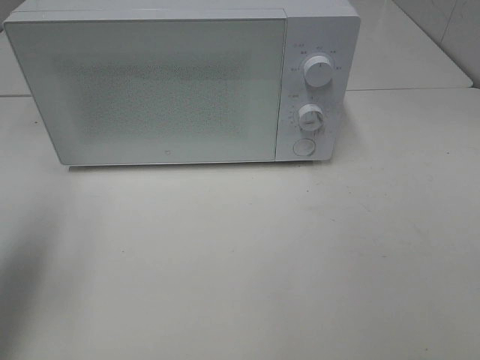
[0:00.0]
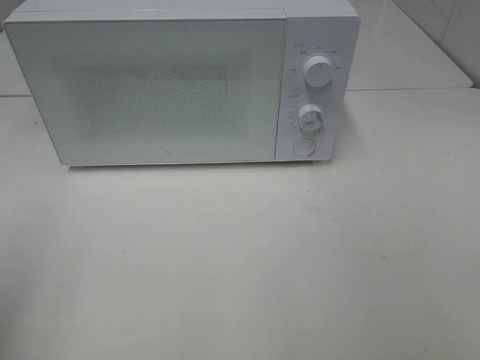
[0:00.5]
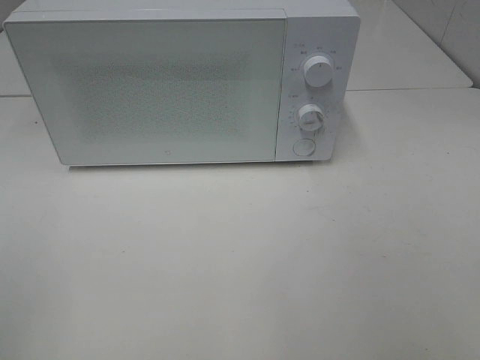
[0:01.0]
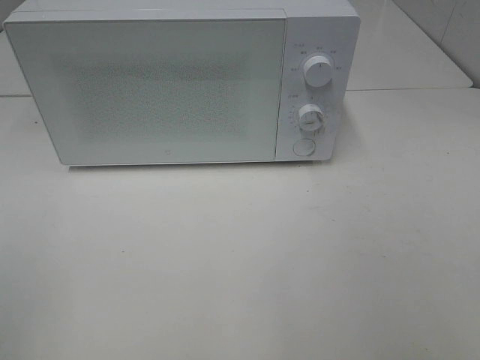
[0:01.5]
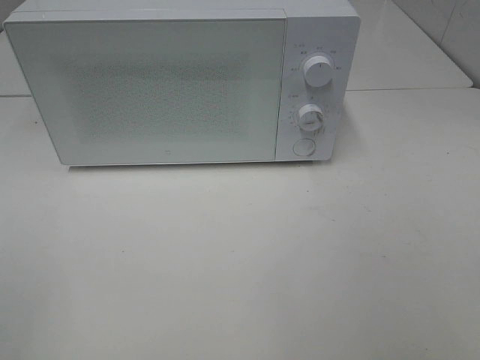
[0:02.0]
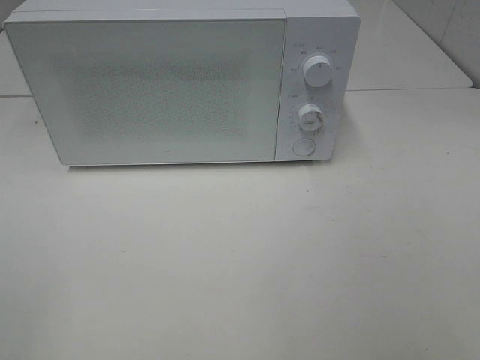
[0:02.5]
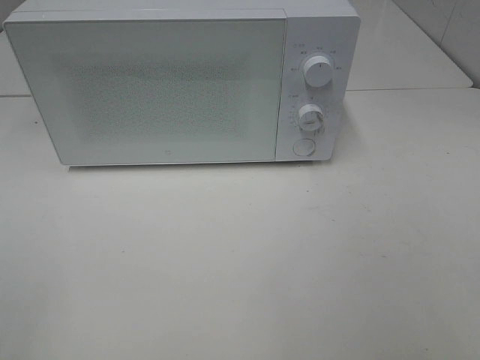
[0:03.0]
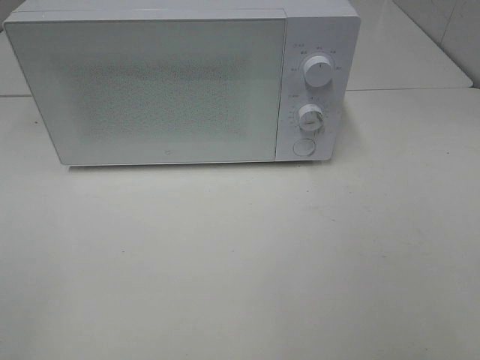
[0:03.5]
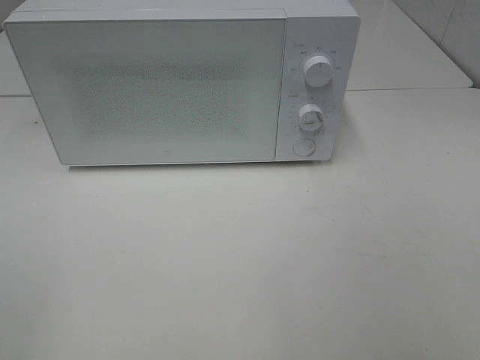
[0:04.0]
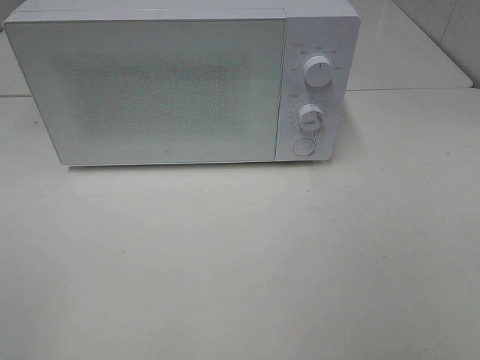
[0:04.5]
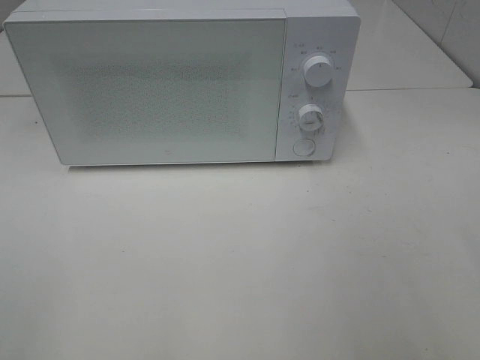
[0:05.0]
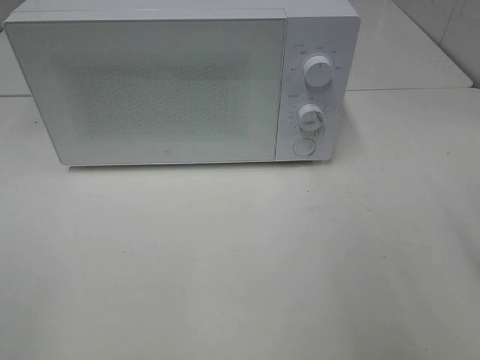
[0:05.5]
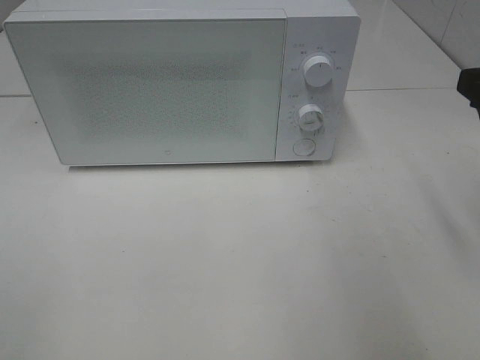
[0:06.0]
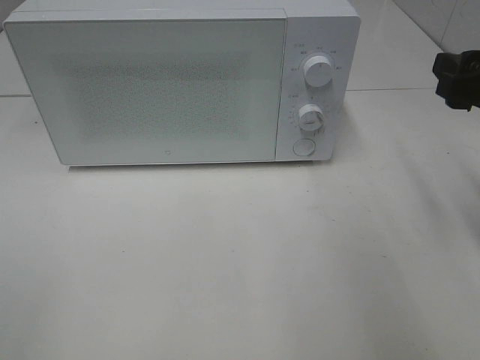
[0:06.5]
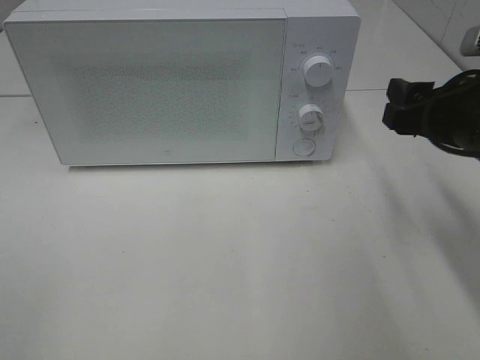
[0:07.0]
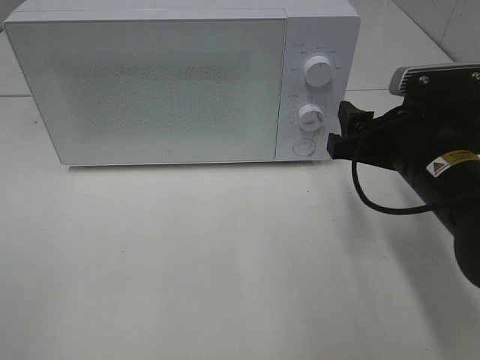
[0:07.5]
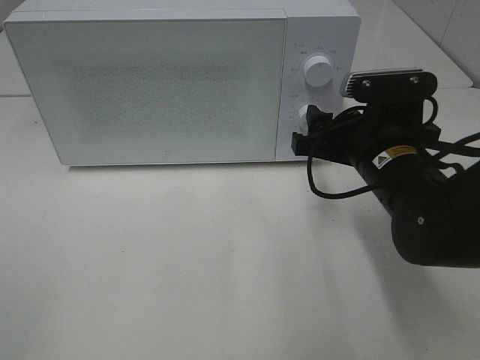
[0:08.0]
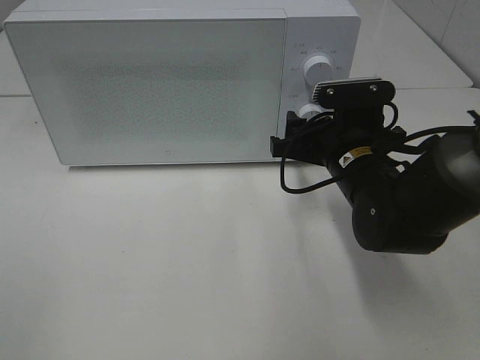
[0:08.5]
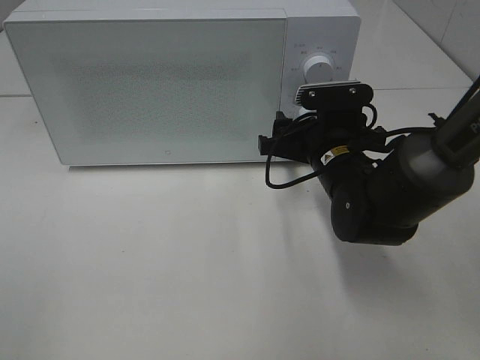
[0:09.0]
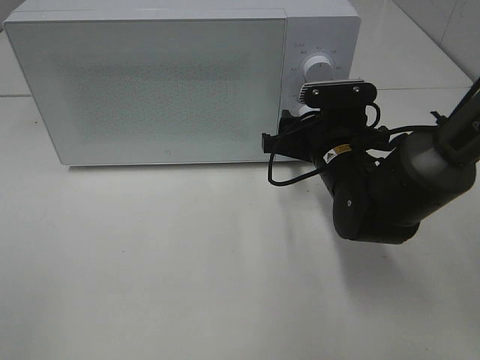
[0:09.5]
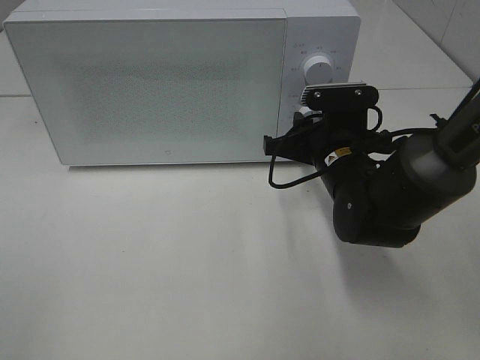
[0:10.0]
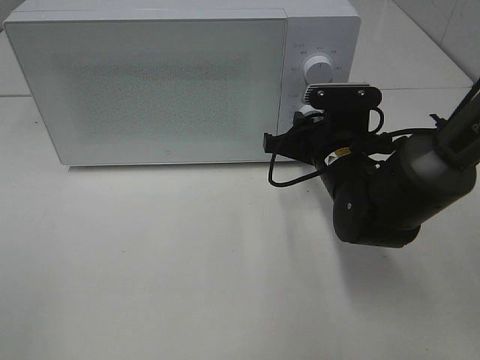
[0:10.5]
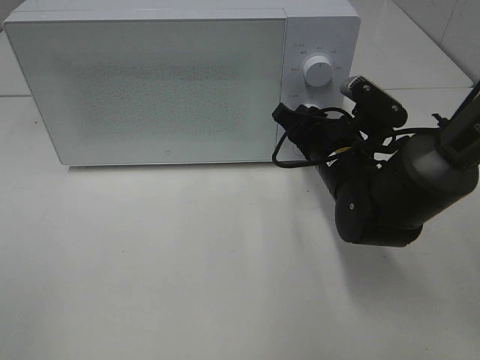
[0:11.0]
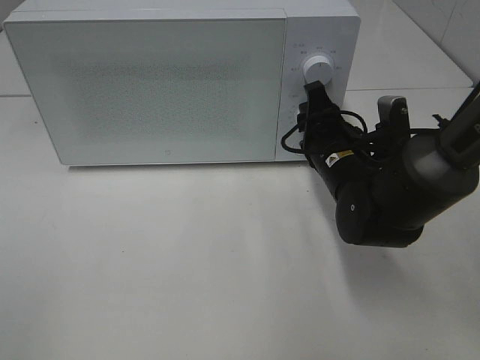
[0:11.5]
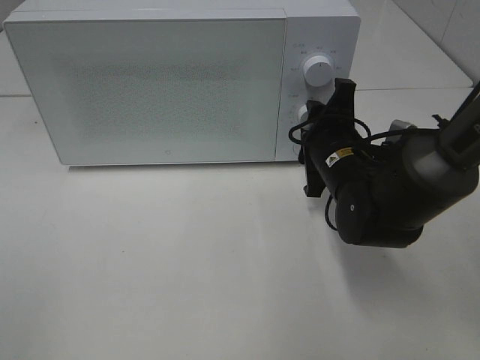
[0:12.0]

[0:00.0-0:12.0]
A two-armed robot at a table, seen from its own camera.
Task of the whole recording: Heat Sandwich.
0:00.0 to 0:02.0: The left gripper heads backward, covering some 20 cm.
0:06.0 to 0:08.0: The right gripper is displaced to the left, downward and forward by some 20 cm.
0:08.0 to 0:10.0: The right gripper ends up approximately 5 cm from where it was, and closes its fingers.

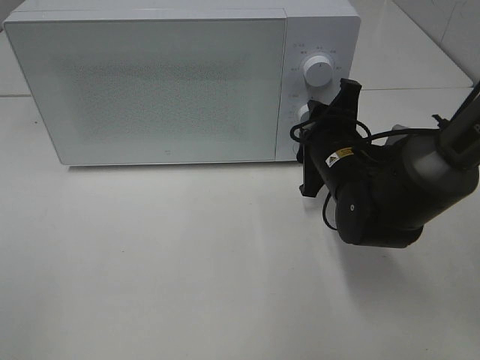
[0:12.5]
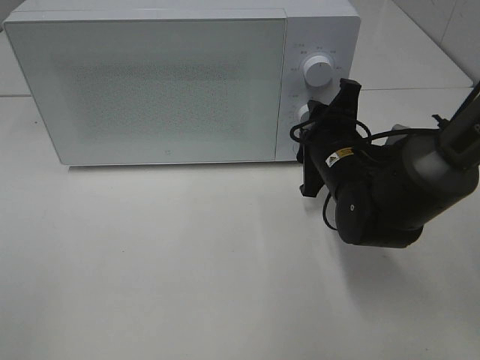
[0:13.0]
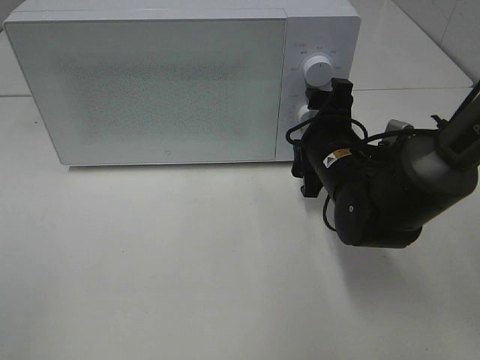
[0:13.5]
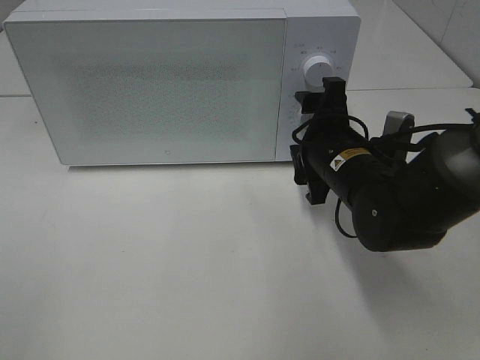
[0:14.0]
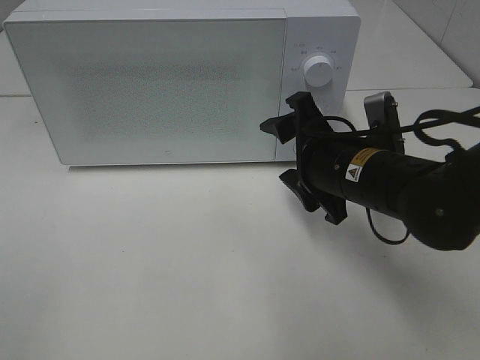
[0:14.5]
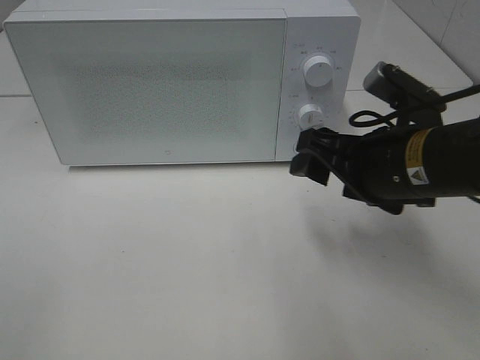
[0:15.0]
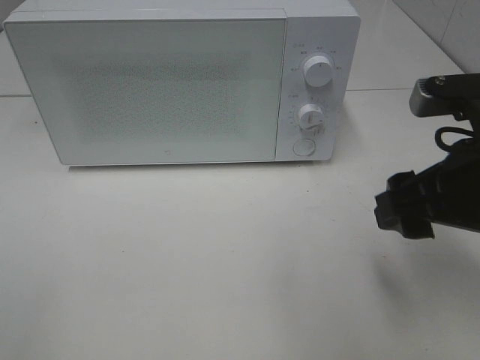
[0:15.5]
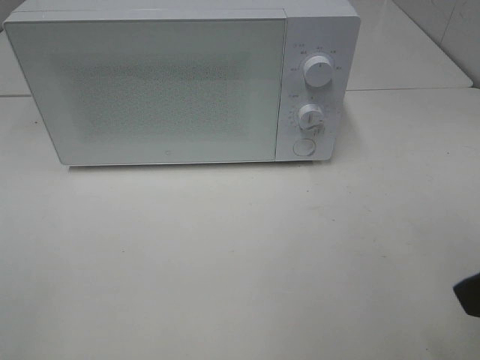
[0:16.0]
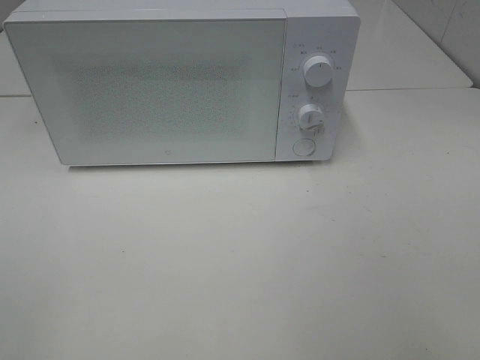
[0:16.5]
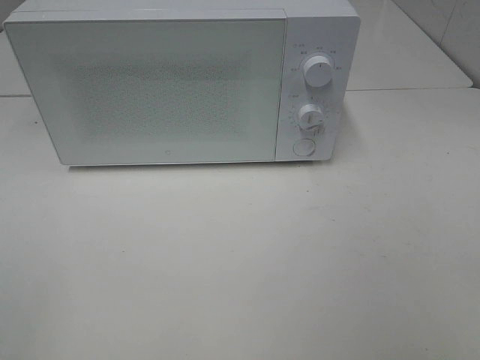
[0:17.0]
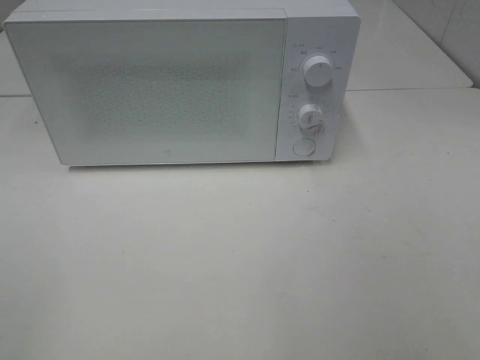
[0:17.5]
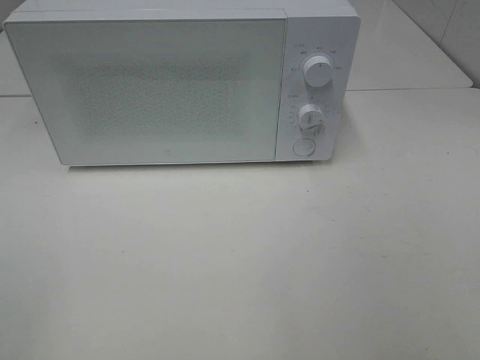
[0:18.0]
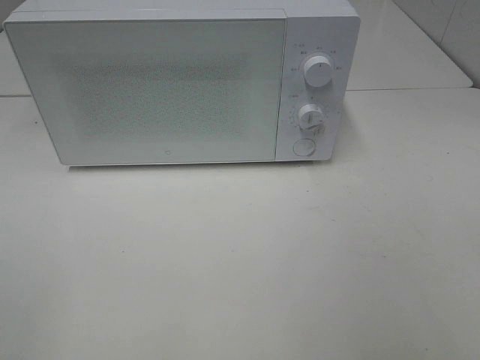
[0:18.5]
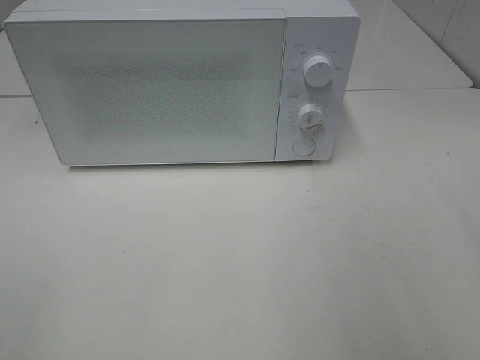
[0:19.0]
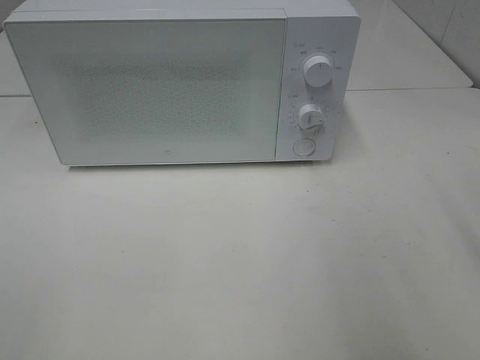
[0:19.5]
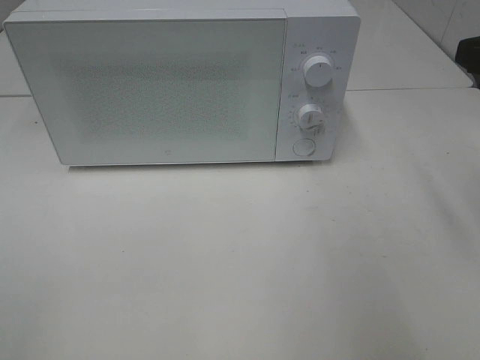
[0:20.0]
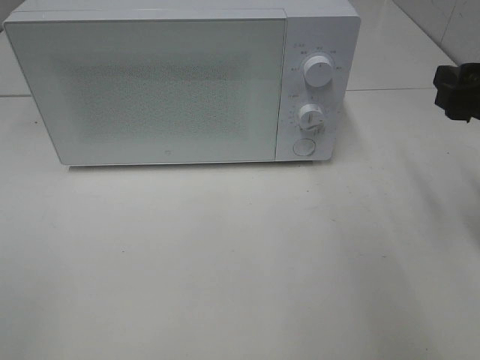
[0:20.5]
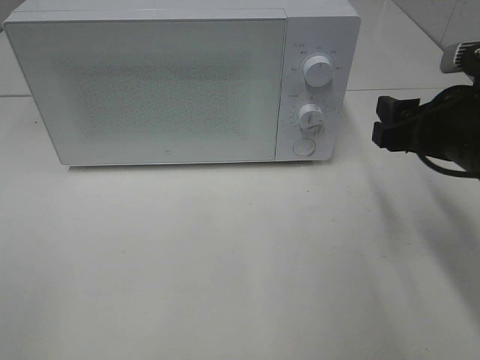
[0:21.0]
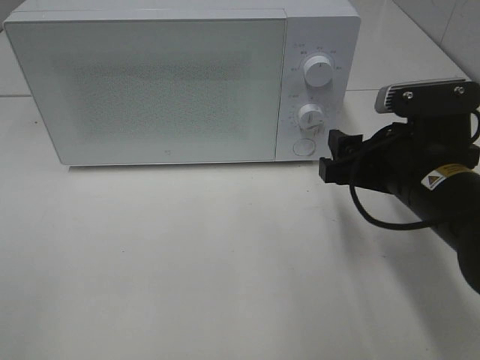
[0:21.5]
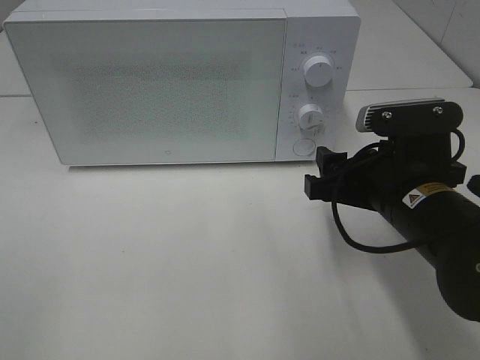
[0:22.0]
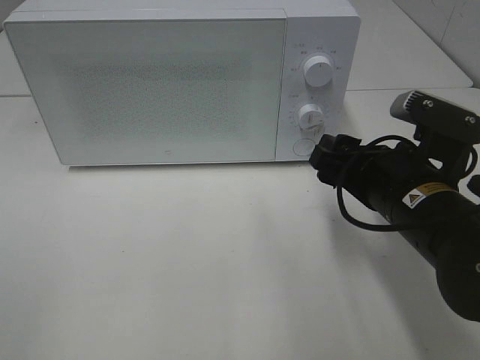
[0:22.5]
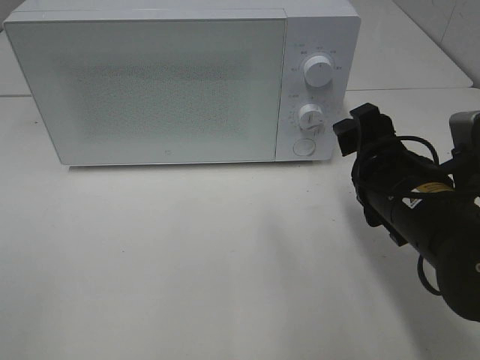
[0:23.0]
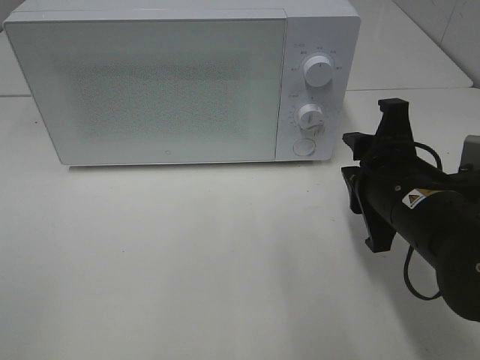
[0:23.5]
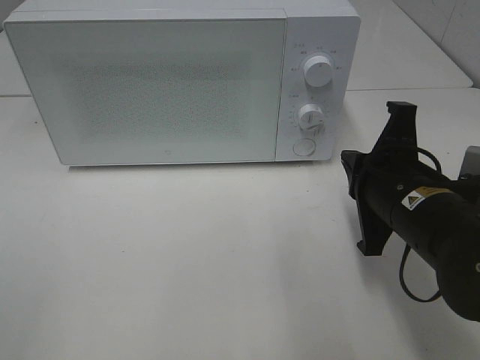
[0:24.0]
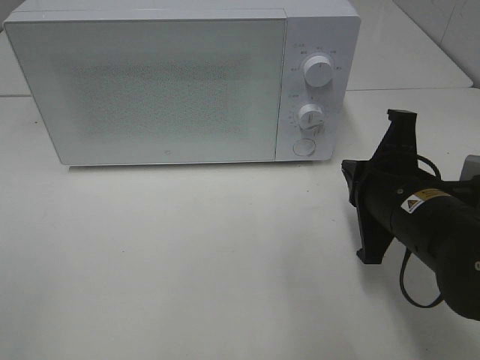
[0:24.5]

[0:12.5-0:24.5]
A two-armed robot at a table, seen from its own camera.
Task of the whole recording: Heat Sandwich.
0:12.5 to 0:14.5: The right gripper goes about 5 cm backward, and opens its fingers.
0:14.5 to 0:16.5: The right gripper goes about 30 cm backward, to the right and upward.
0:18.5 to 0:20.5: The right gripper travels forward by about 20 cm.
0:20.5 to 0:22.5: The right gripper travels to the left and downward by about 15 cm.
0:22.5 to 0:24.5: The right gripper closes up.

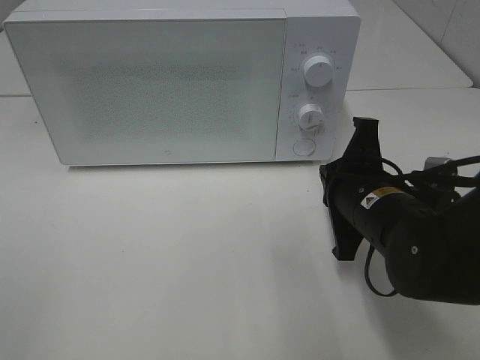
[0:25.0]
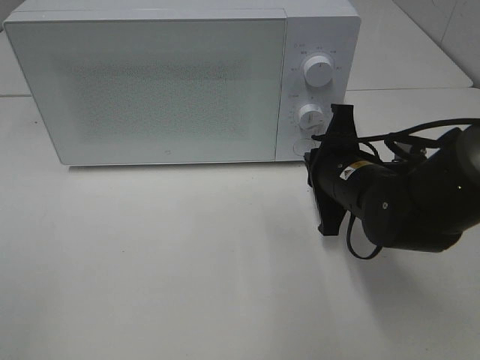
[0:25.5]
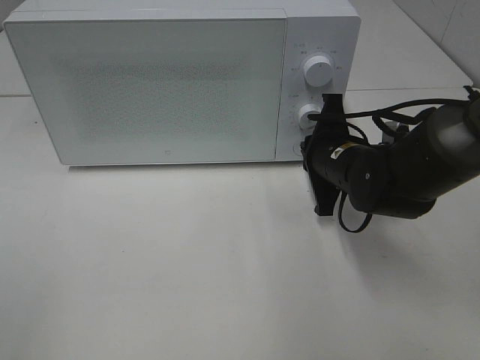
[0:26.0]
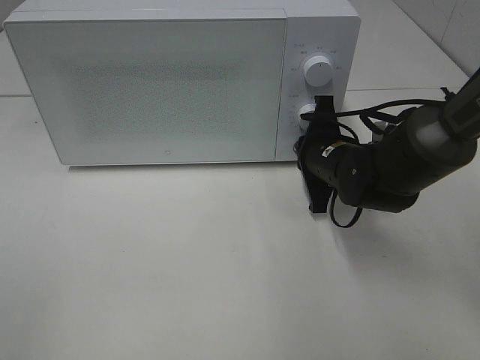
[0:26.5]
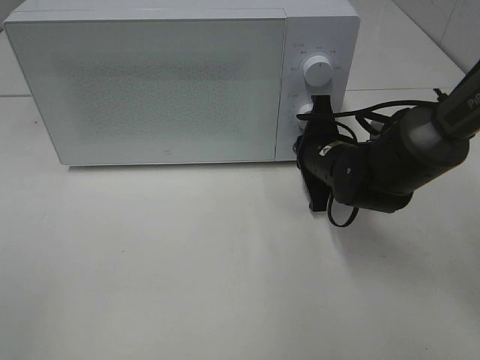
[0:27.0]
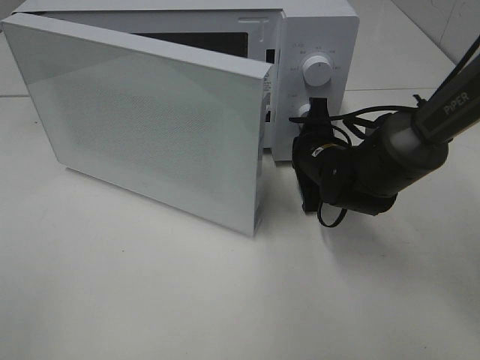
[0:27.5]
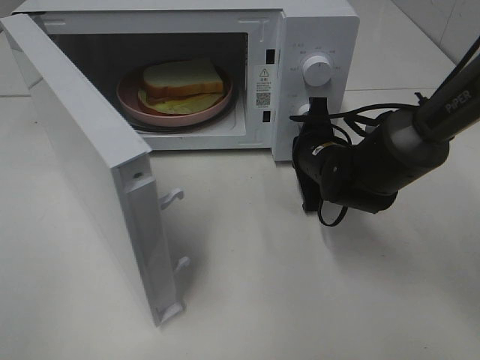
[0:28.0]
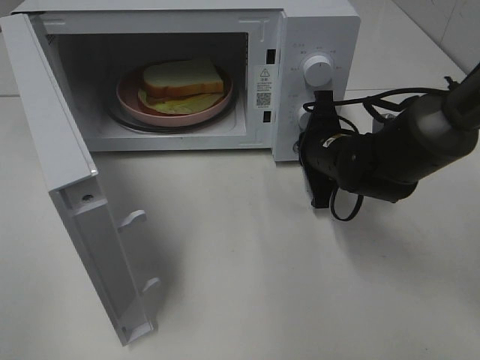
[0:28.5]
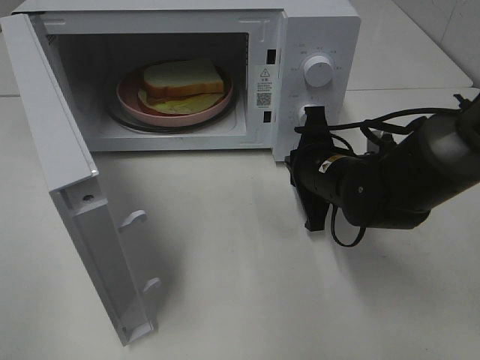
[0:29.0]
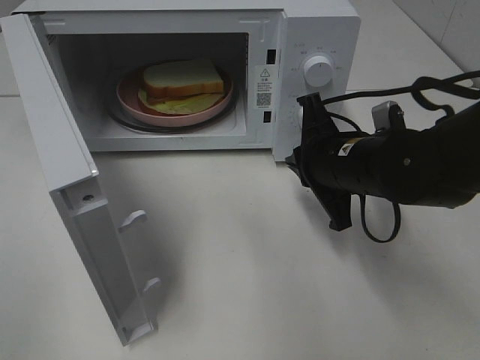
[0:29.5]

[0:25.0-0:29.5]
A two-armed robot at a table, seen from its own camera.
Task of the whole recording: Heat Sandwich.
Step, 0:25.0 to 0:29.0: Right hand: press the switch.
0:25.0 to 0:27.0: The right gripper travels forward by roughly 10 cm.
0:27.0 to 0:29.5: The right gripper shifts about 5 cm backward.
